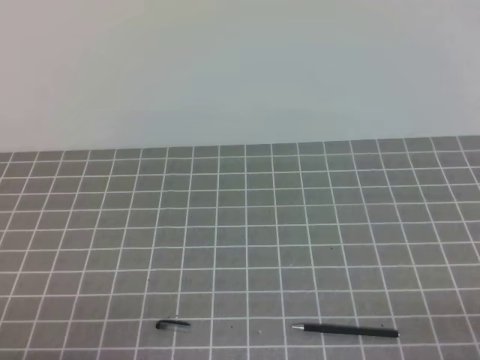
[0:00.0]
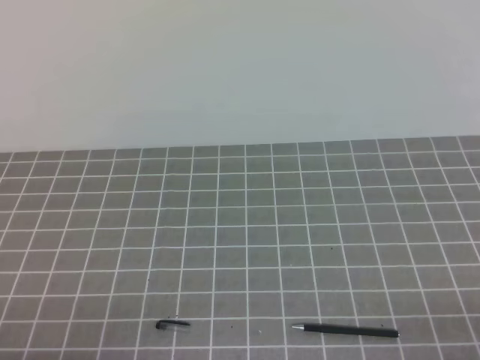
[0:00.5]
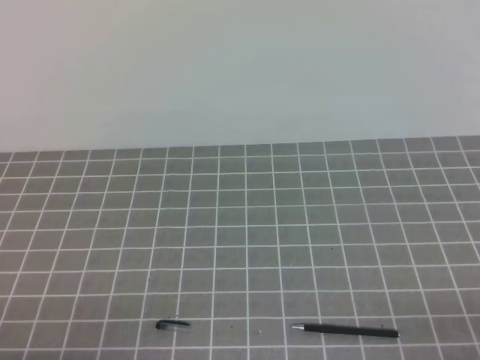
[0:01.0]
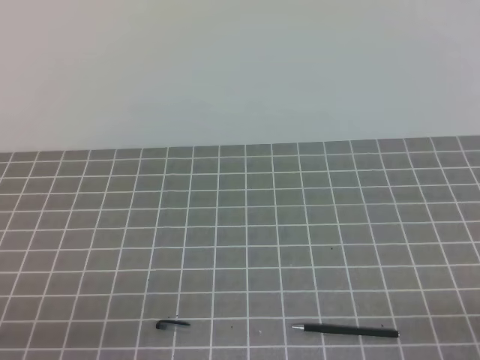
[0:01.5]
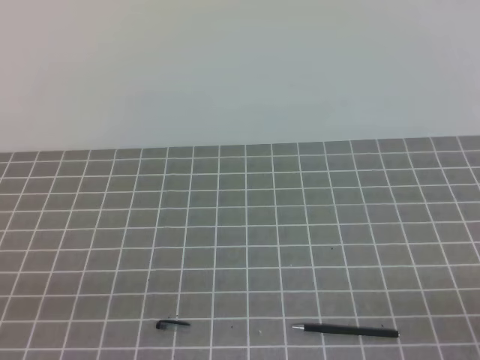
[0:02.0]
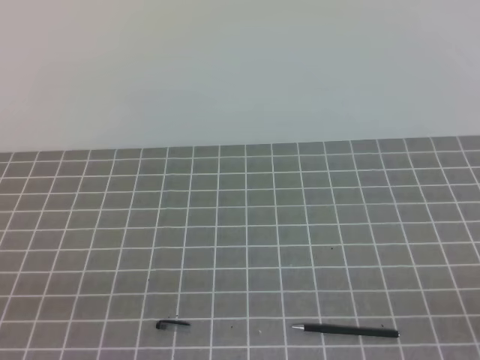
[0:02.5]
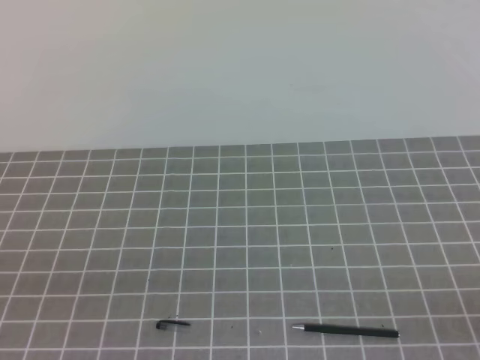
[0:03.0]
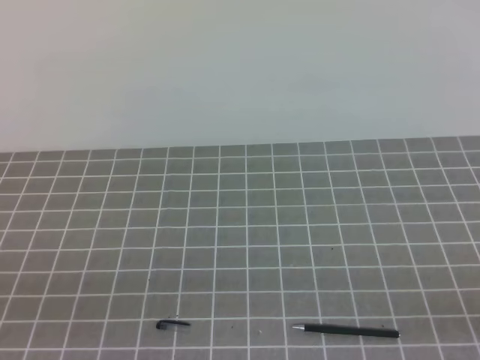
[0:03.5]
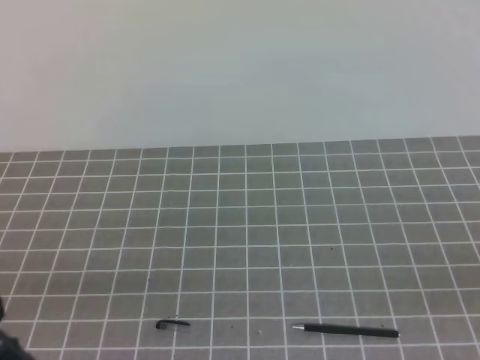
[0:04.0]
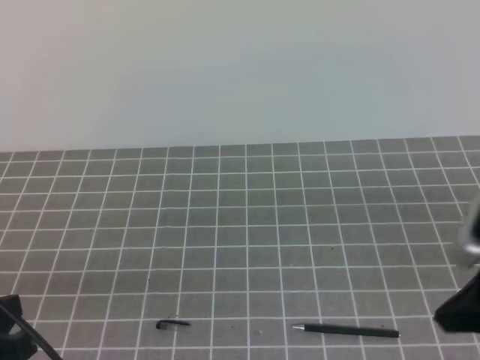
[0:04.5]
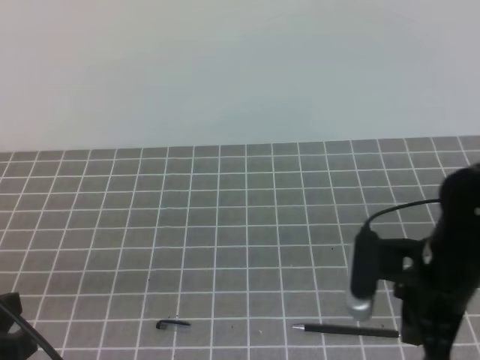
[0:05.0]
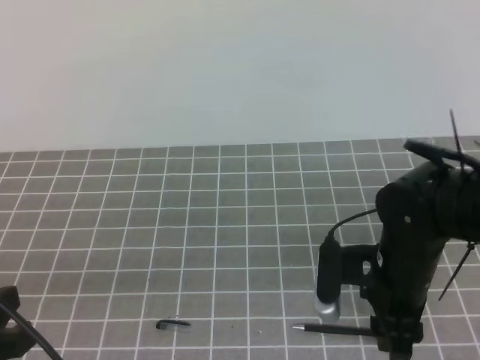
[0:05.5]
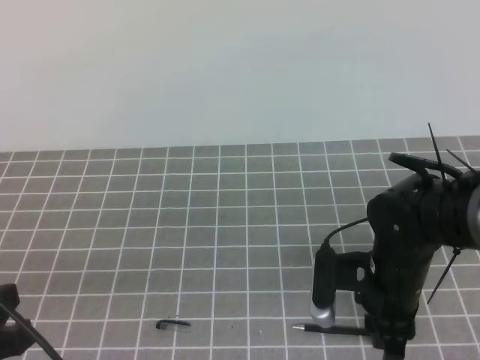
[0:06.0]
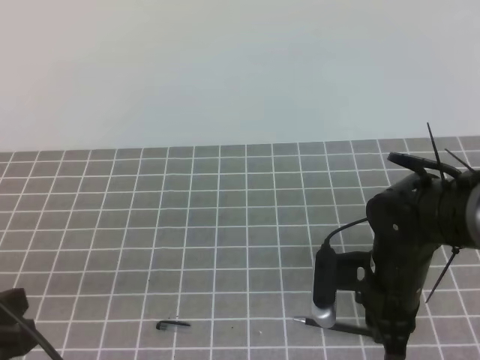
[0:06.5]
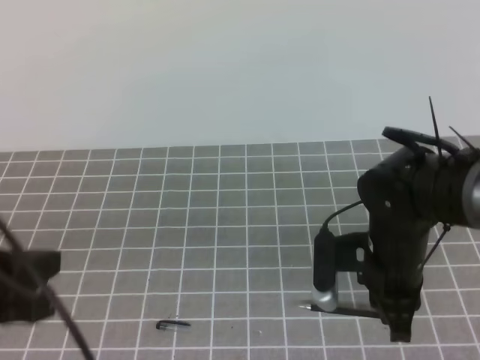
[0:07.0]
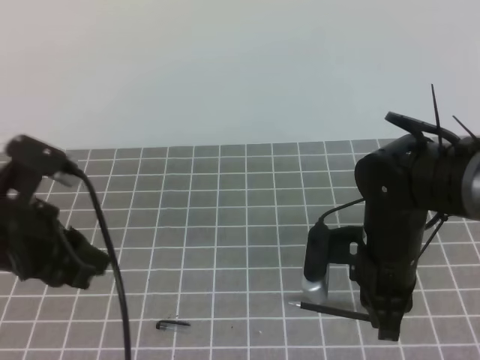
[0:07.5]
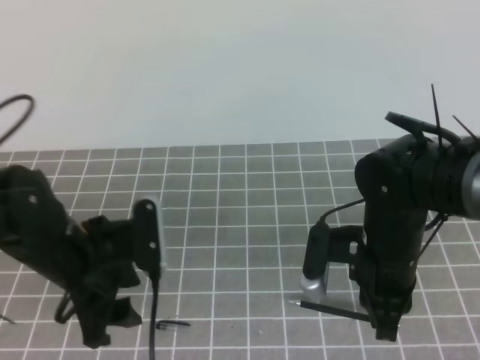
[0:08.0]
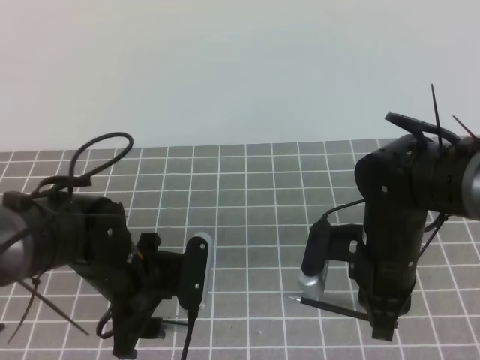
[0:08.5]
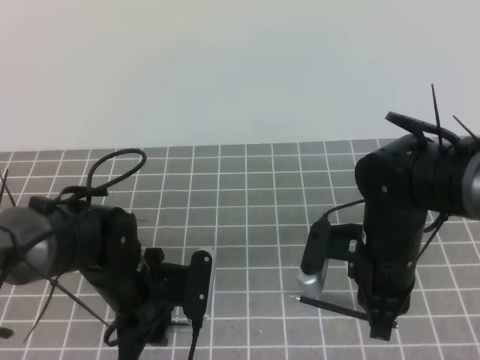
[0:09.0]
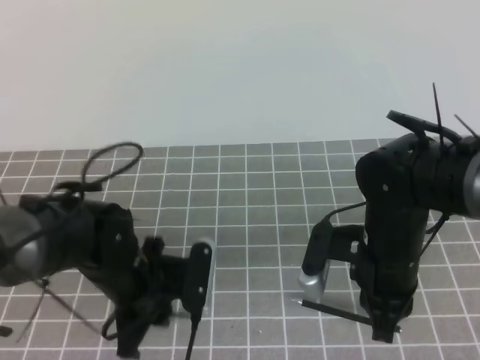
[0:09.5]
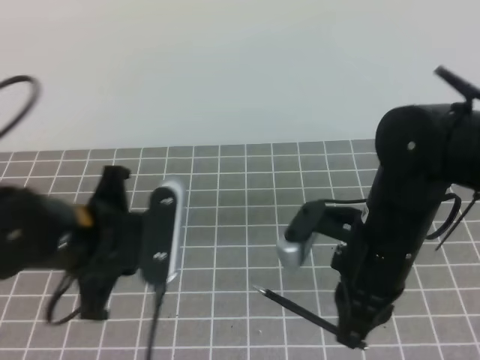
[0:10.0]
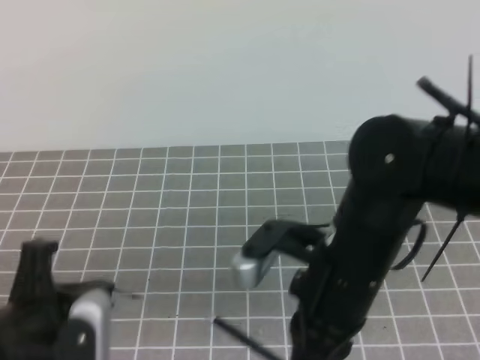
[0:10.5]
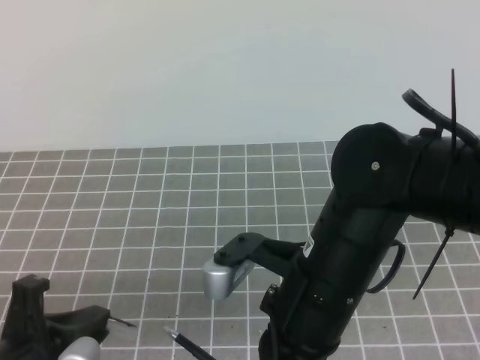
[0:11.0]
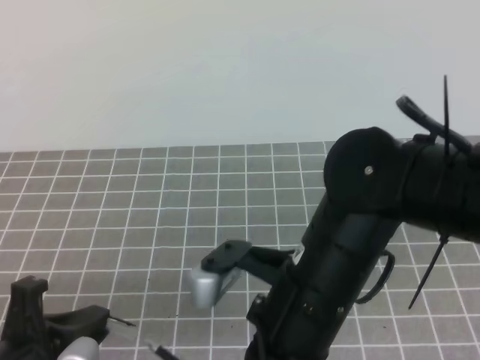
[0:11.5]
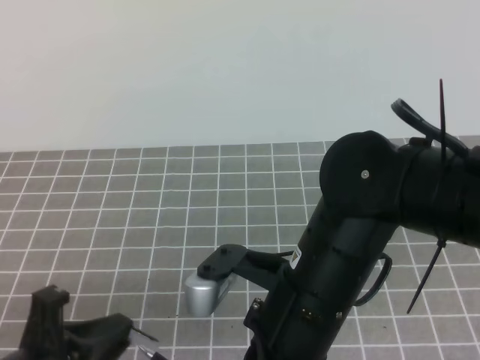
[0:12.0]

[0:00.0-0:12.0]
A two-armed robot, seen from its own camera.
Task of the whole recording: on the grey tablecloth, hold the pen cap in one hand and the pen in the other, then cover the pen cap.
4.0 to 6.0 s: The right gripper is displaced forward, to the left and downward by approximately 30 cm, and opens.
6.0 to 8.0 s: The right gripper closes. Meanwhile the left gripper moves forward and to the right, roughly 15 cm, and opens up.
8.0 to 10.0 s: The left gripper reaches approximately 5 cm downward, then returns, and closes. Meanwhile the right gripper ends up roughly 5 cm from where it was.
10.0 to 12.0 s: The two grippers go roughly 10 cm backward and to the left.

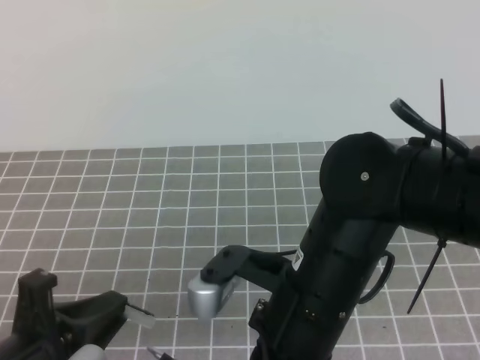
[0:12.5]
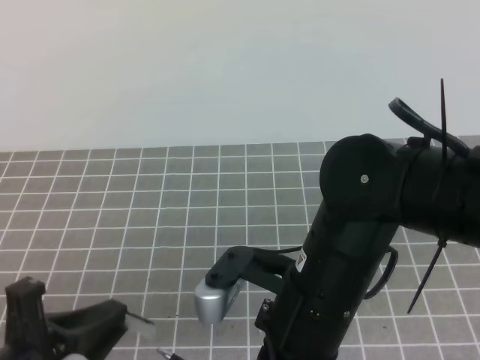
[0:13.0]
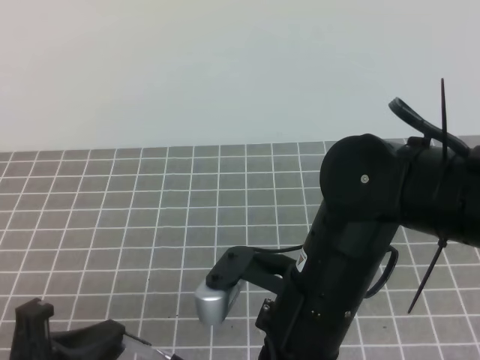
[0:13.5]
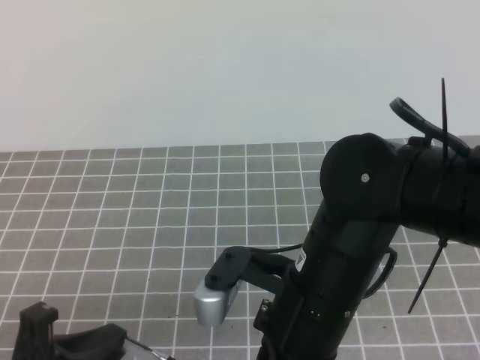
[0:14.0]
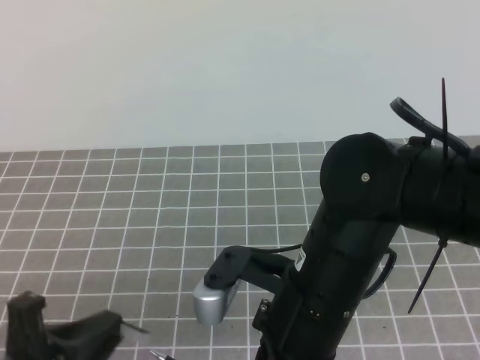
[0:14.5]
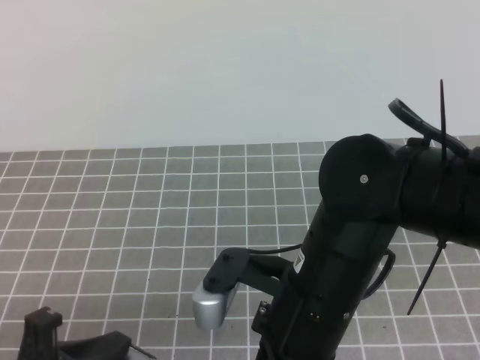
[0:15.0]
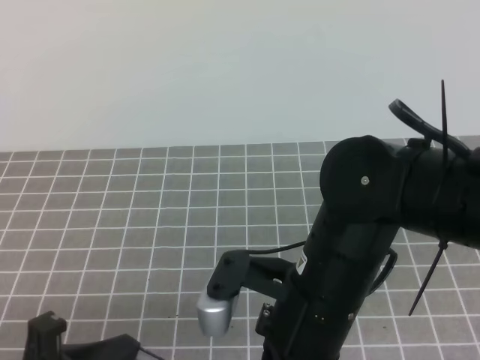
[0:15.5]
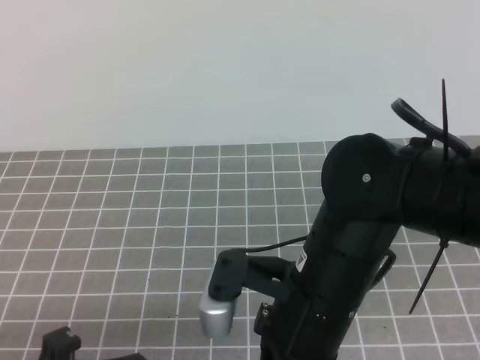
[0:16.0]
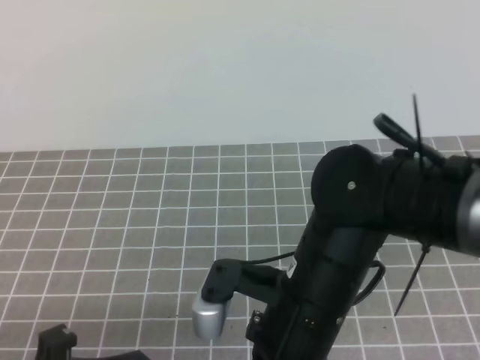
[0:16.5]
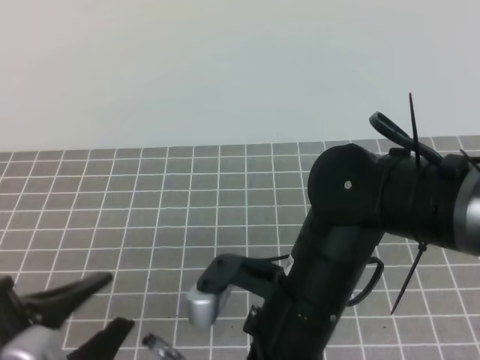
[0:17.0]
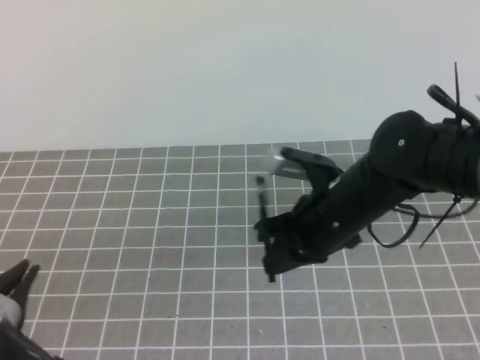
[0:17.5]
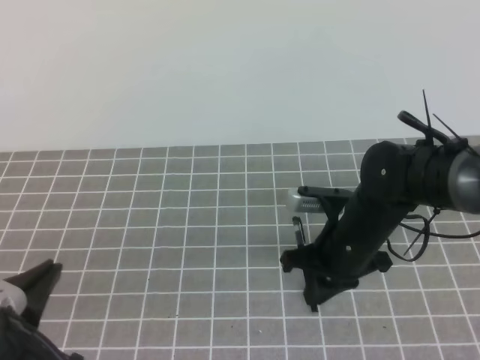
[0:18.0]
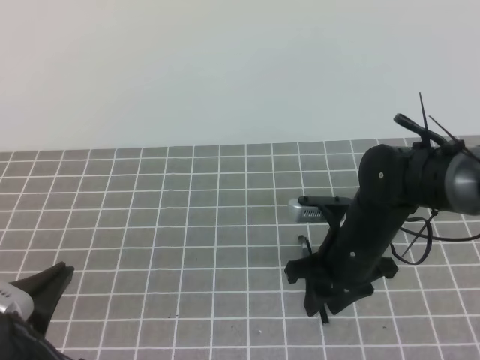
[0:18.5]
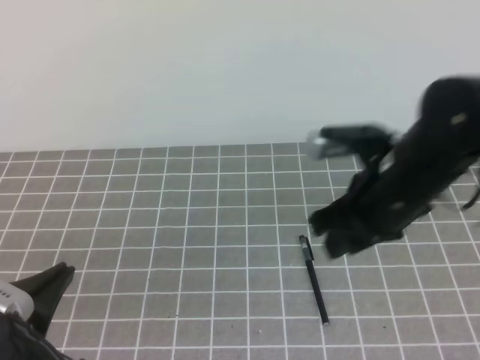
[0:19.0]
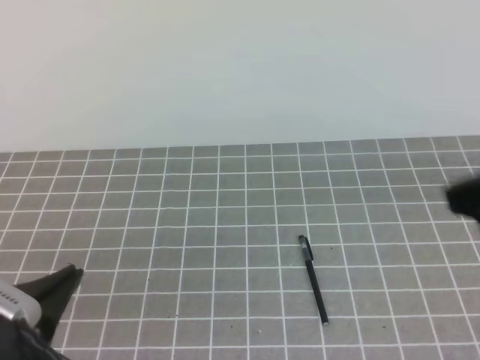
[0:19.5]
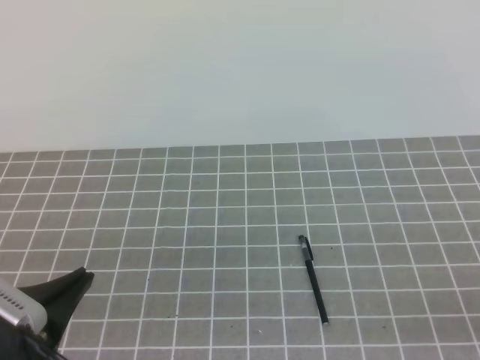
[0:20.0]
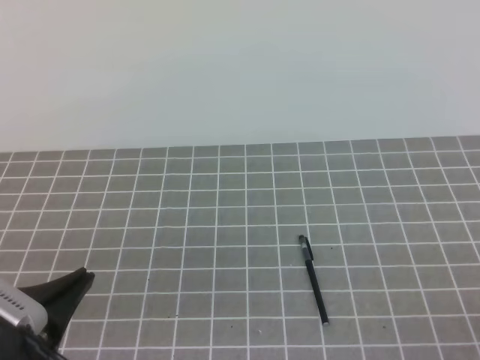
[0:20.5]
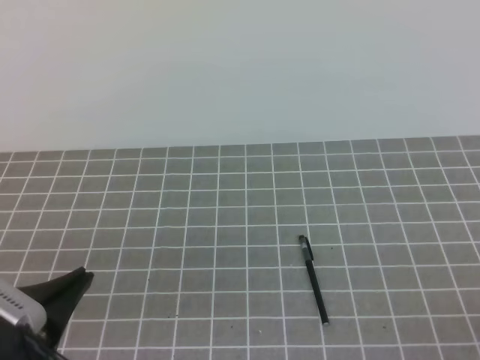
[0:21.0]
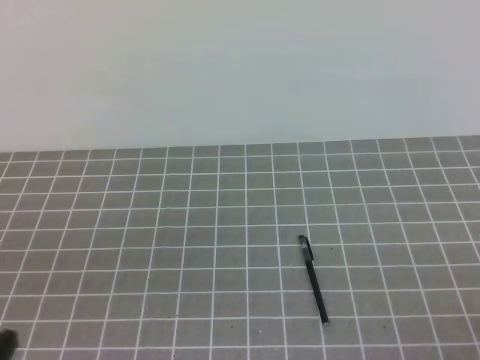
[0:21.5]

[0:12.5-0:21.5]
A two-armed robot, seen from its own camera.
Task of the whole recording: on the grey tablecloth, hold the pen cap in one hand and the pen in the other, then cover the pen cap.
12.5 to 14.5 s: There are only small adjustments of the grippers.
14.5 to 17.0 s: The left gripper opens its fingers.
17.0 to 19.5 s: The left gripper closes up; the right gripper shifts roughly 20 cm to the right and upward, and opens and closes again.
19.5 to 21.5 s: The right gripper moves backward, downward and to the right, approximately 20 cm.

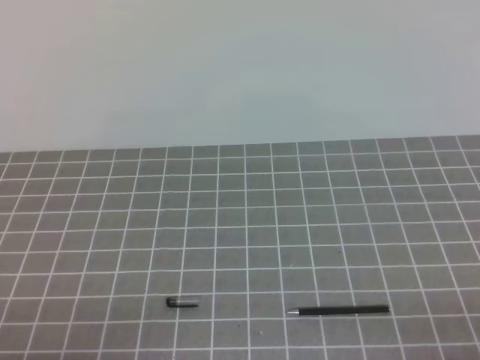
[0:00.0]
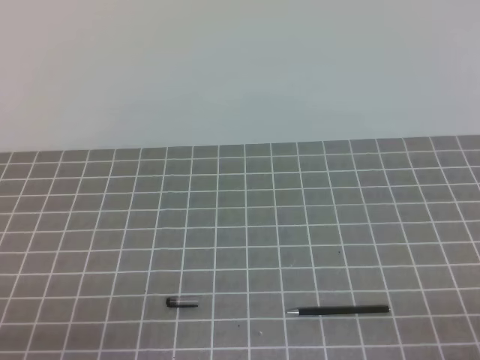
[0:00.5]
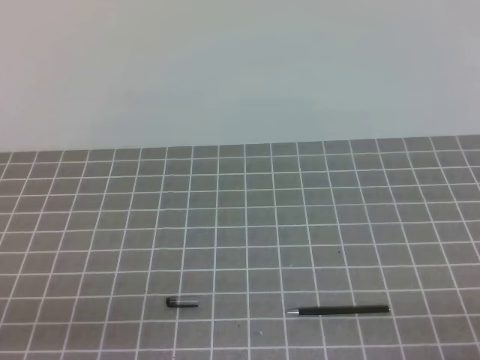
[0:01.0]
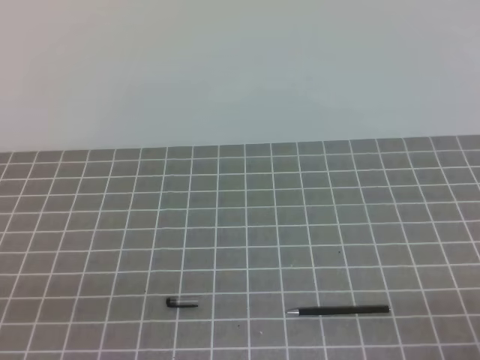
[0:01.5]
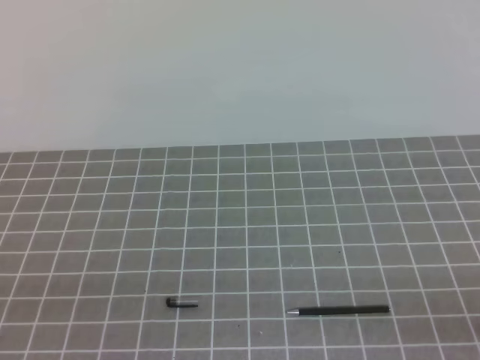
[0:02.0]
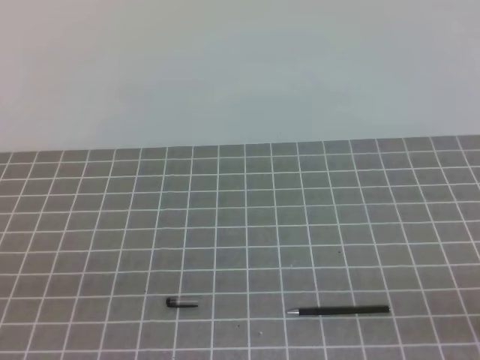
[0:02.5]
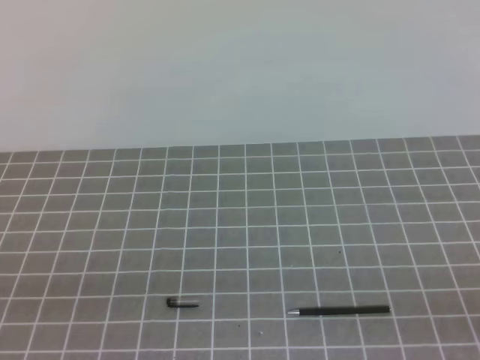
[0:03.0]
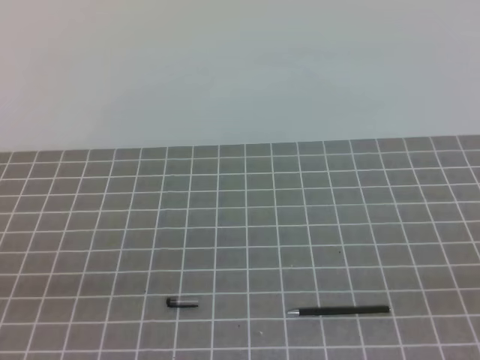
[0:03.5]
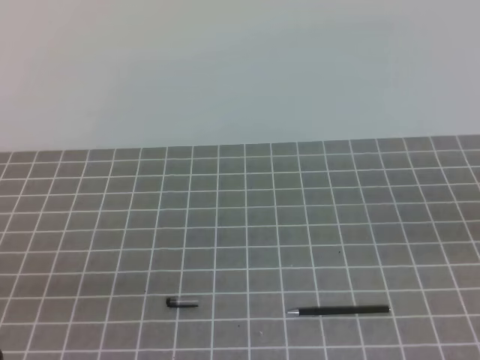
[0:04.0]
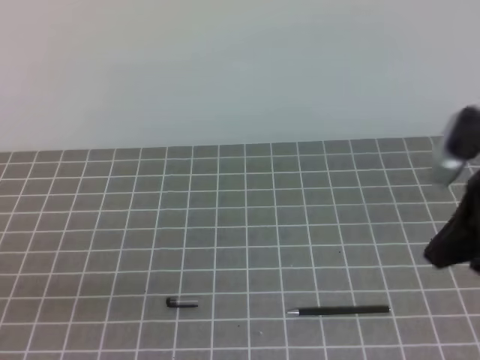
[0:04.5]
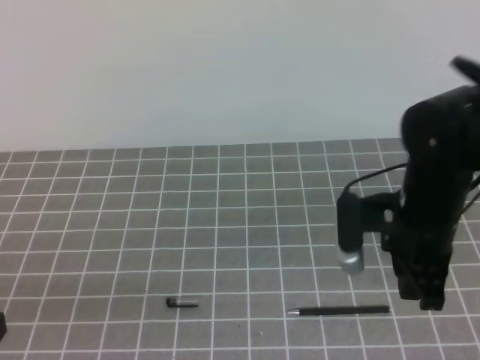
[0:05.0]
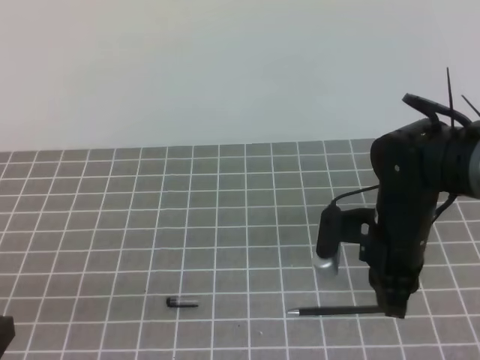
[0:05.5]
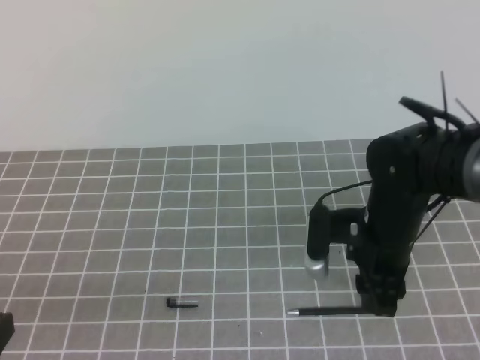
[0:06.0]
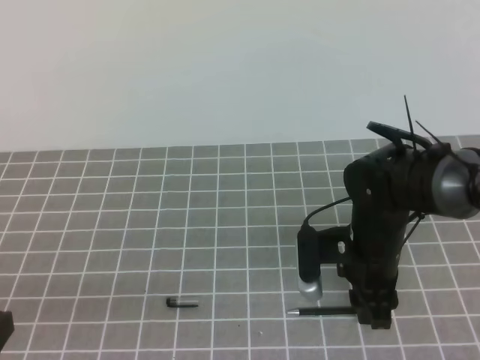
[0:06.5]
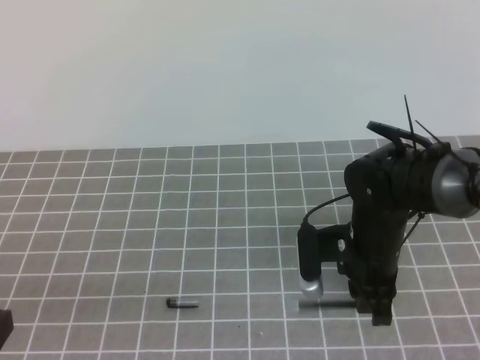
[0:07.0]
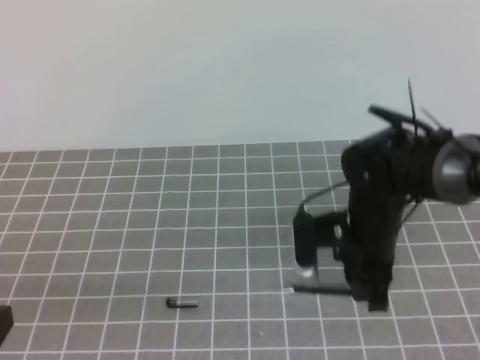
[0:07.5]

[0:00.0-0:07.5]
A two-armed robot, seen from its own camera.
Task of the whole recording: on the grey tablecloth, hold the pen cap in one hand and the pen in the other, then cover the pen cap.
4.0 to 5.5 s: The right gripper heads forward, to the left and downward, covering roughly 25 cm, and opens up.
5.5 to 7.5 s: The right gripper closes up.
